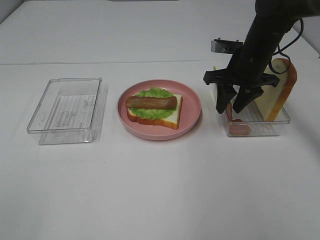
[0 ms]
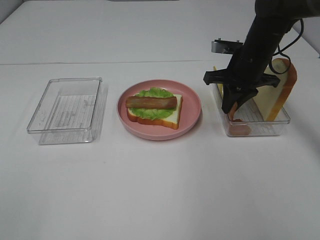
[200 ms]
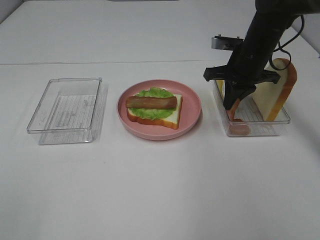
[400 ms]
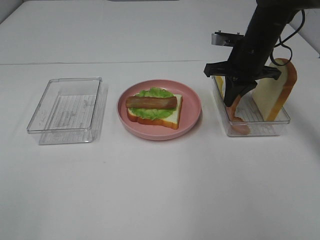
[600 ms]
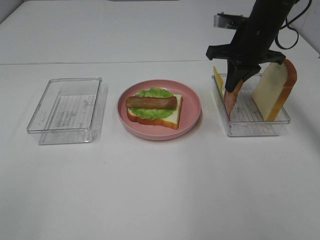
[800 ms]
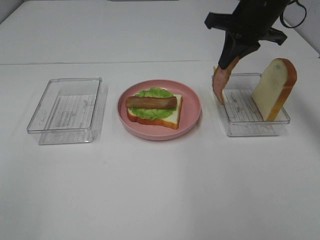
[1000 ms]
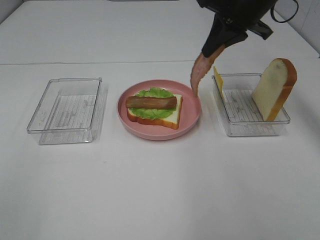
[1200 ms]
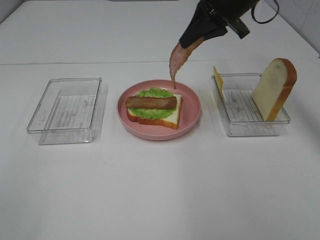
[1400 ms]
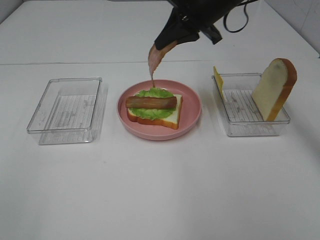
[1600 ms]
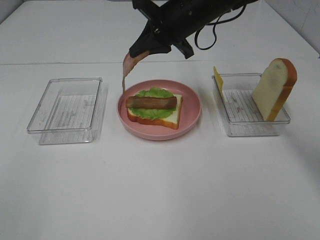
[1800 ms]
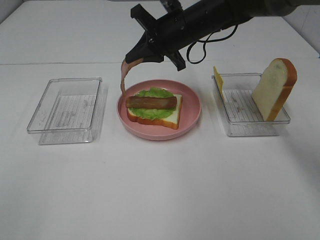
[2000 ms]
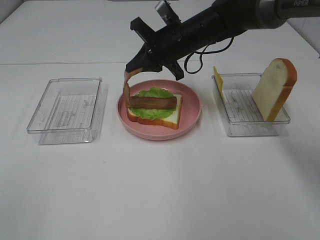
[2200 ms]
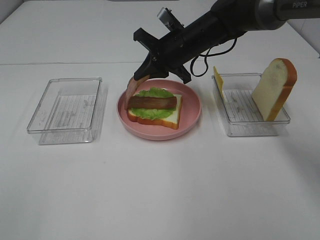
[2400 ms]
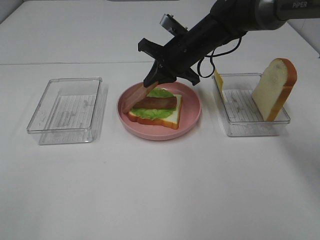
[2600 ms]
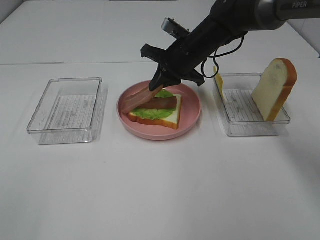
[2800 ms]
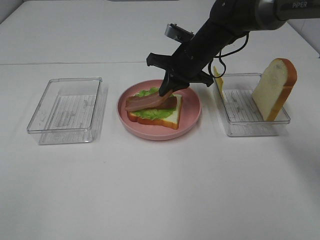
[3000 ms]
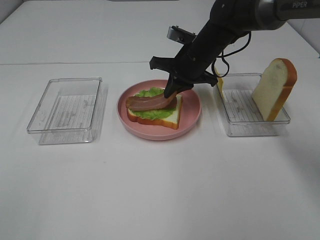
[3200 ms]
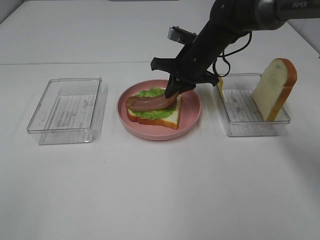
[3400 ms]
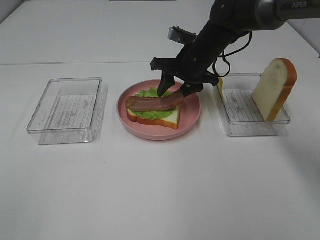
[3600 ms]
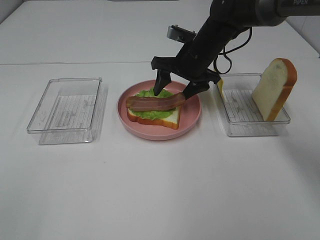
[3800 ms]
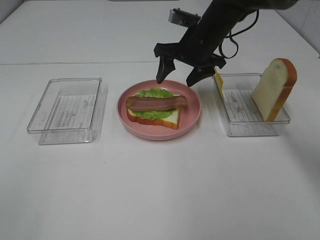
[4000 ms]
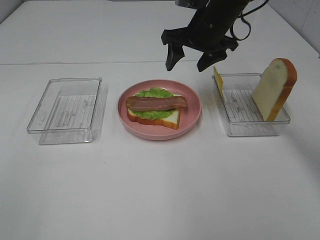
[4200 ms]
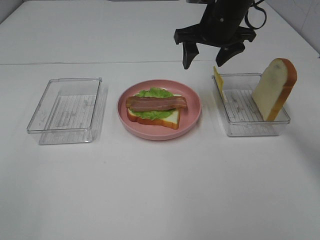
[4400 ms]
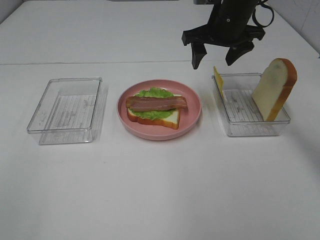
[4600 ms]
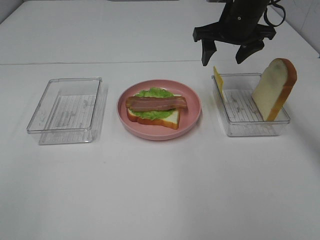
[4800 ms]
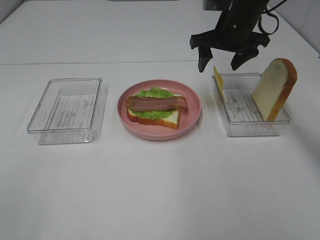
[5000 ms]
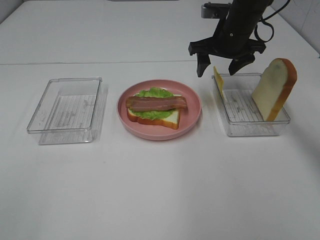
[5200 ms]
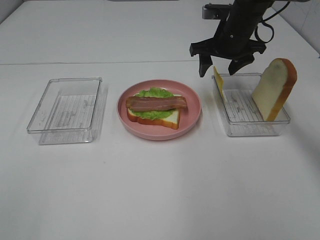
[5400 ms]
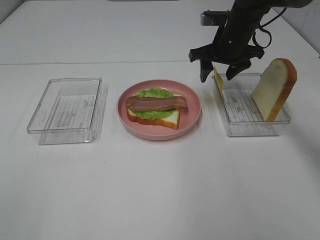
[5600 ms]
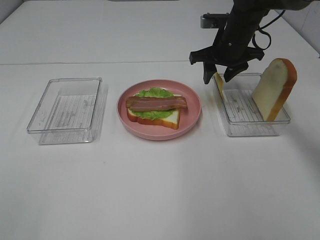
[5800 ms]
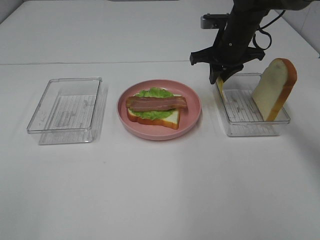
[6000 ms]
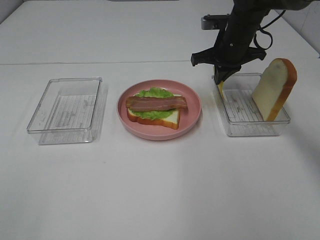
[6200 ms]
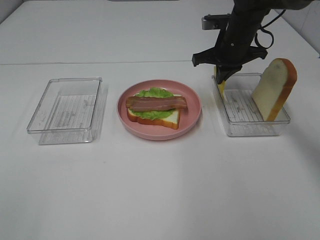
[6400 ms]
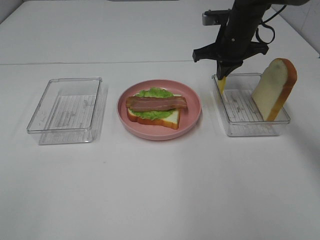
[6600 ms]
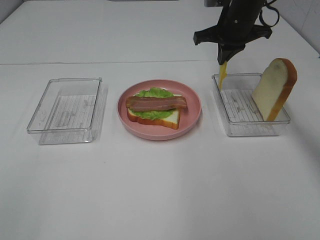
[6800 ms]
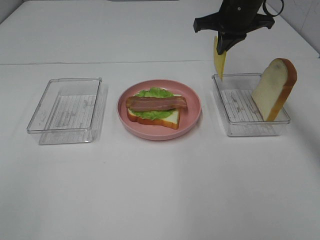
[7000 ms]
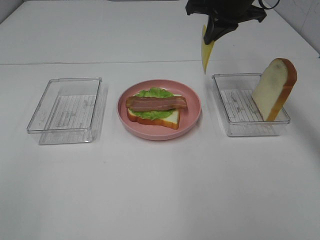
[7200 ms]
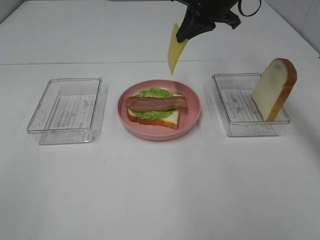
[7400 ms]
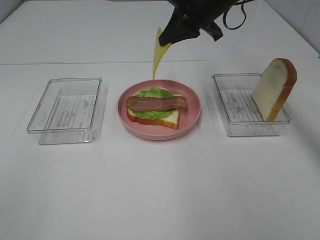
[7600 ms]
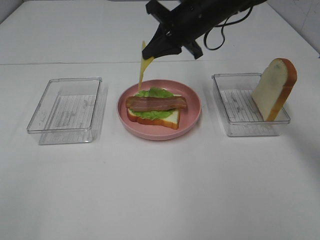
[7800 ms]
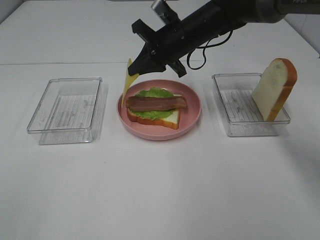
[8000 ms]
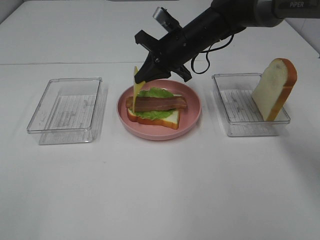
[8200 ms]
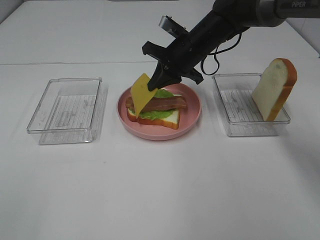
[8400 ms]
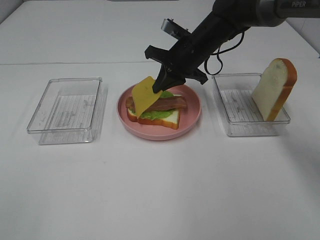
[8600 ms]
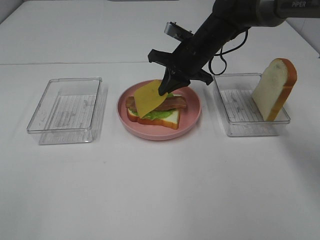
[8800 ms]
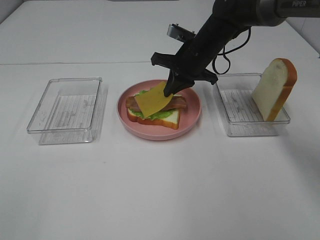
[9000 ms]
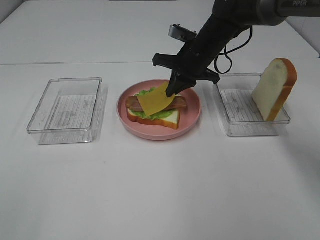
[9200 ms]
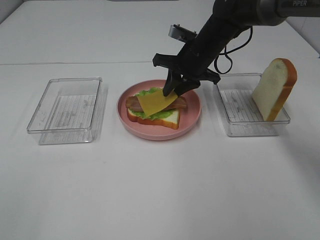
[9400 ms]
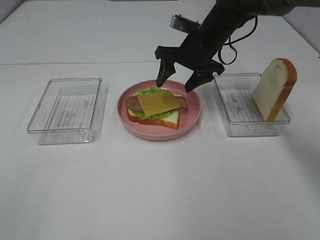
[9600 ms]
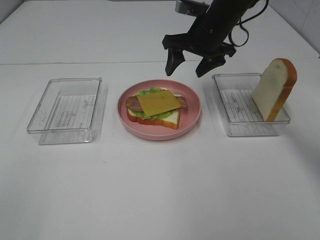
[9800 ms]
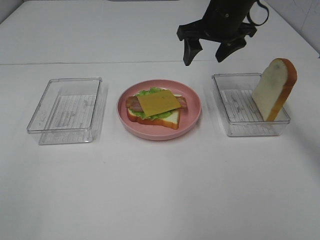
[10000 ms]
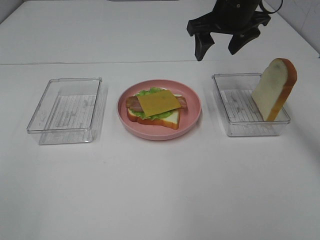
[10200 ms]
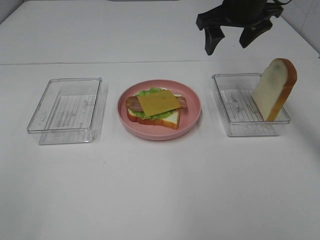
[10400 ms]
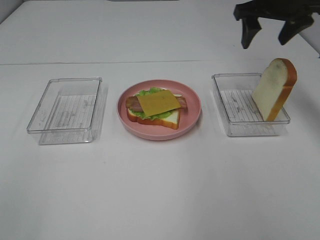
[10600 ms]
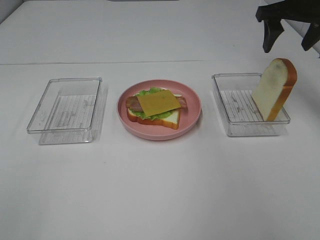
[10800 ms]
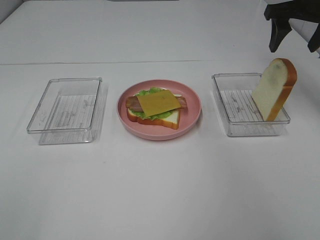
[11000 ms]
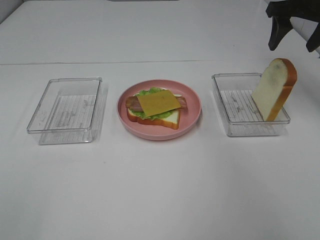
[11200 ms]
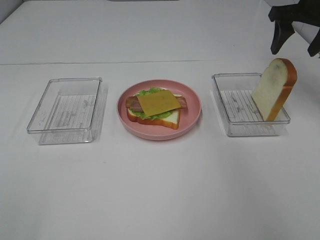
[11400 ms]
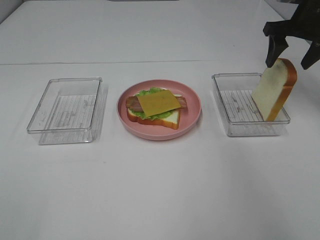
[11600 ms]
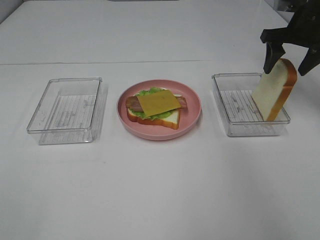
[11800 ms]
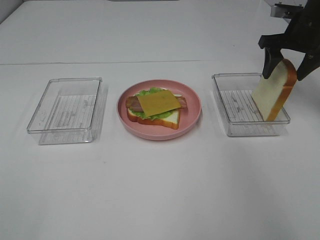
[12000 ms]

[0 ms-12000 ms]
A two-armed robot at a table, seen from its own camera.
Task of the whole recording: Make sandwiches.
Step, 600 ms to 4000 ms: Right hand:place bacon on bacon.
Step, 4200 ms to 6200 ms: Right hand:grab the cheese slice.
Step, 6400 ms to 9800 ms: Right hand:place the cheese slice on top of the bacon.
0 ms to 1600 ms: The right gripper goes about 15 cm upward and to the left, and closes.
1600 ms to 3000 ms: The right gripper heads downward, covering about 10 cm.
3000 ms to 4400 ms: The right gripper heads upward, covering approximately 10 cm, and opens its fingers.
4400 ms to 6000 ms: The right gripper travels downward by some 5 cm, and closes its fingers.
6000 ms to 7600 ms: The right gripper shifts approximately 10 cm upward and to the left.
7600 ms to 9000 ms: The right gripper moves downward, approximately 10 cm.
9000 ms to 10400 ms: The right gripper is displaced upward and to the right by some 15 cm, and opens.
10400 ms to 12000 ms: The right gripper heads to the right and downward, covering roughly 15 cm.

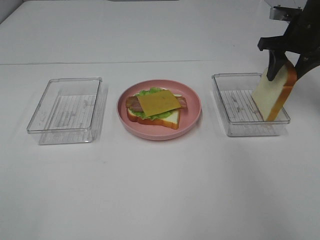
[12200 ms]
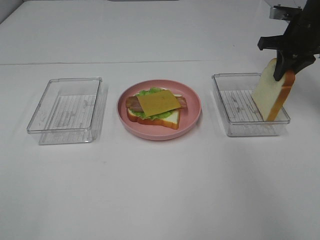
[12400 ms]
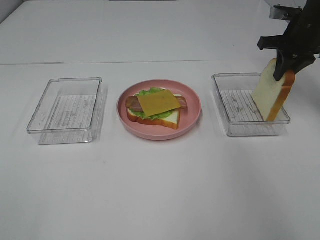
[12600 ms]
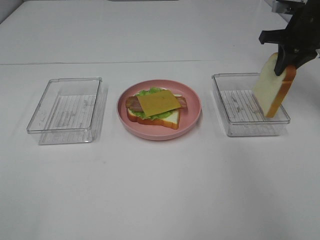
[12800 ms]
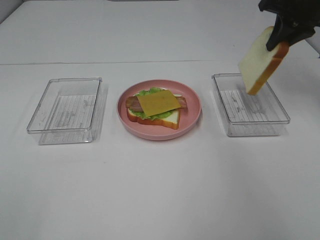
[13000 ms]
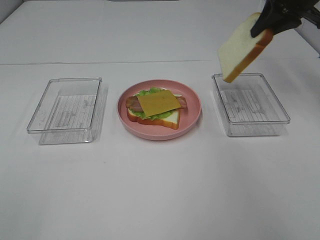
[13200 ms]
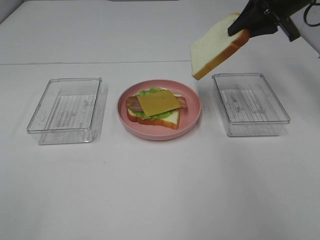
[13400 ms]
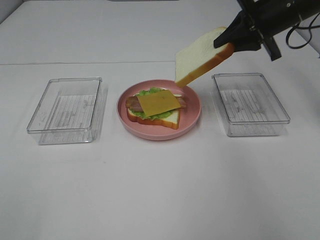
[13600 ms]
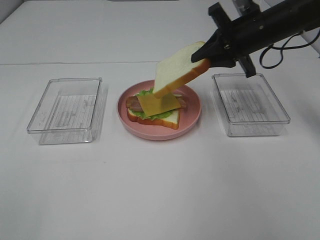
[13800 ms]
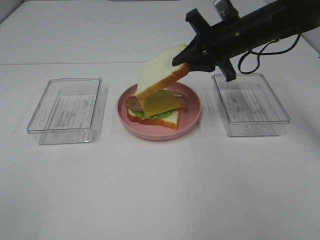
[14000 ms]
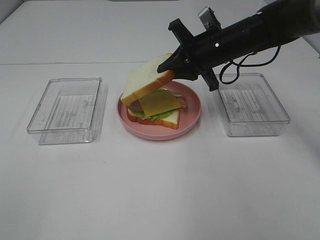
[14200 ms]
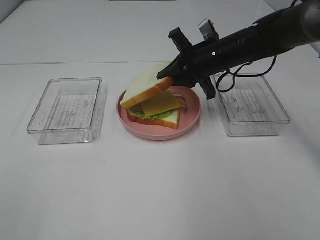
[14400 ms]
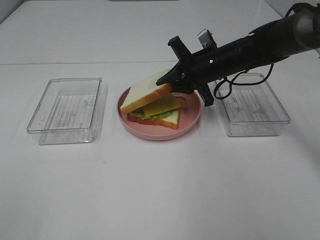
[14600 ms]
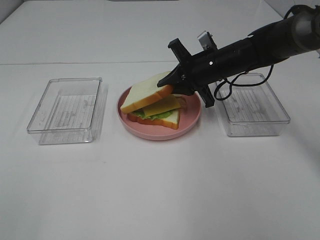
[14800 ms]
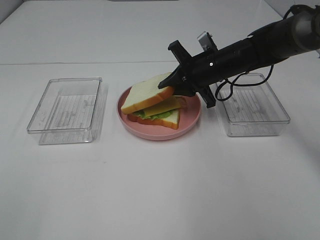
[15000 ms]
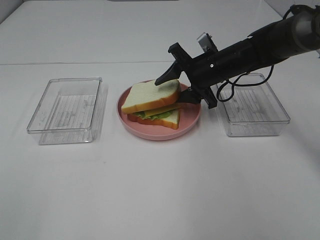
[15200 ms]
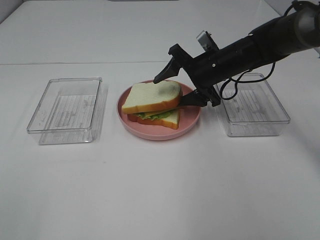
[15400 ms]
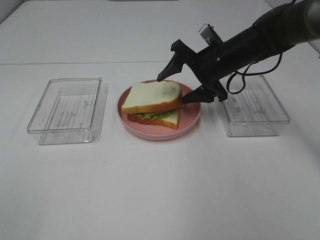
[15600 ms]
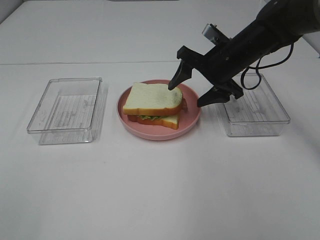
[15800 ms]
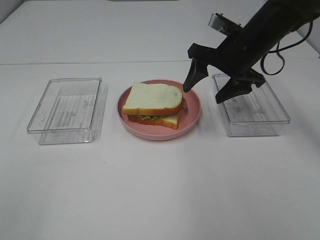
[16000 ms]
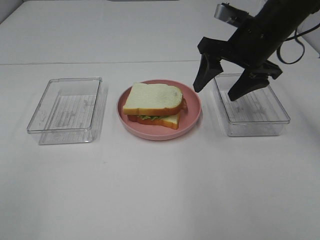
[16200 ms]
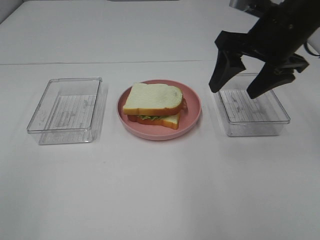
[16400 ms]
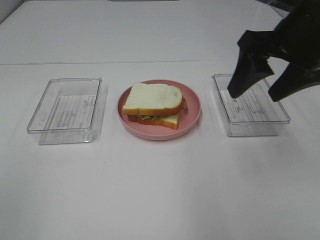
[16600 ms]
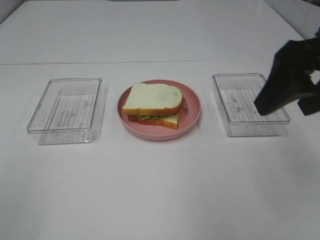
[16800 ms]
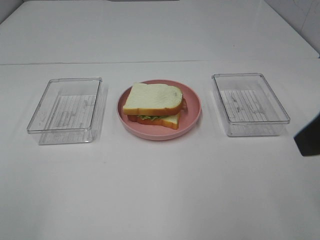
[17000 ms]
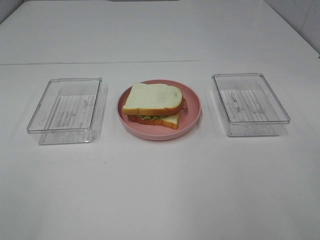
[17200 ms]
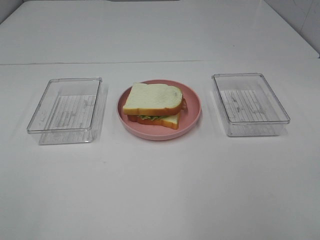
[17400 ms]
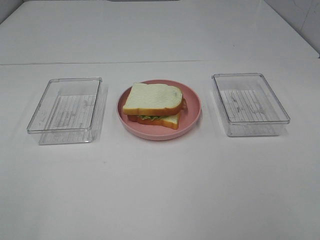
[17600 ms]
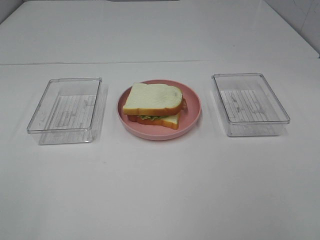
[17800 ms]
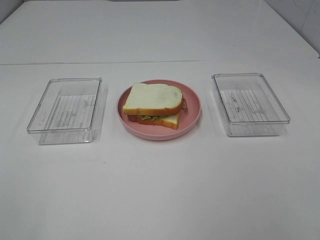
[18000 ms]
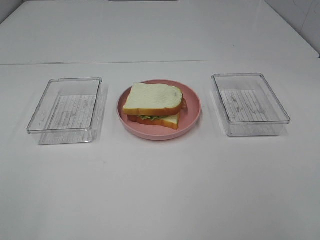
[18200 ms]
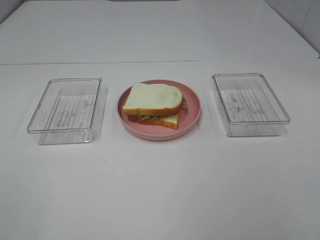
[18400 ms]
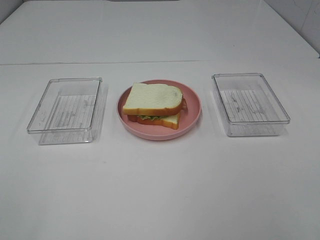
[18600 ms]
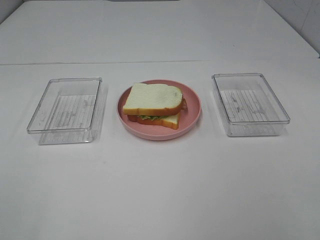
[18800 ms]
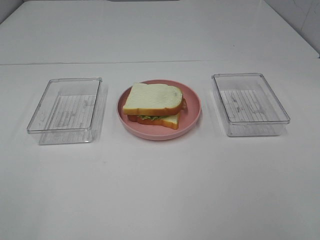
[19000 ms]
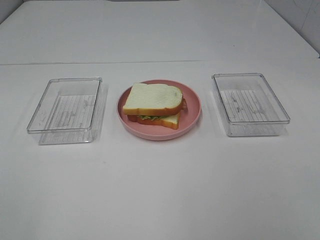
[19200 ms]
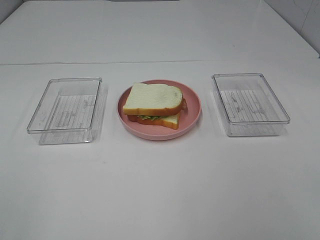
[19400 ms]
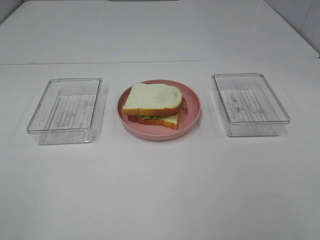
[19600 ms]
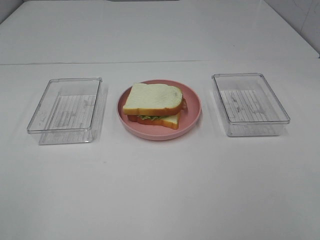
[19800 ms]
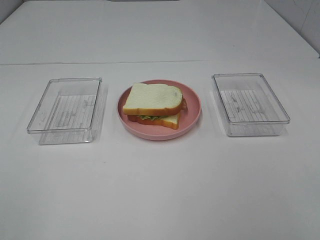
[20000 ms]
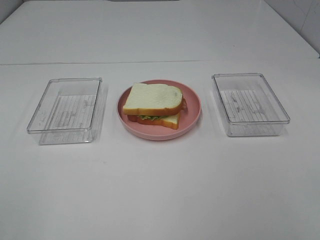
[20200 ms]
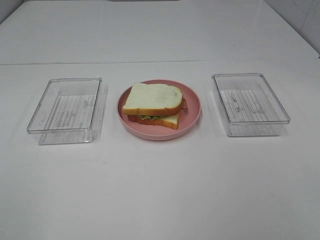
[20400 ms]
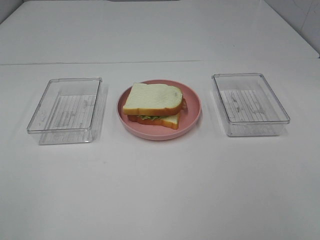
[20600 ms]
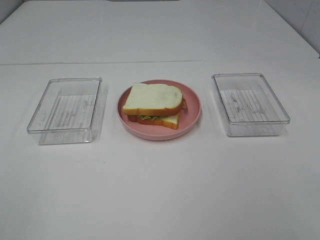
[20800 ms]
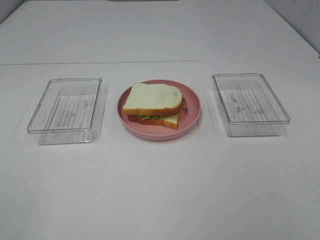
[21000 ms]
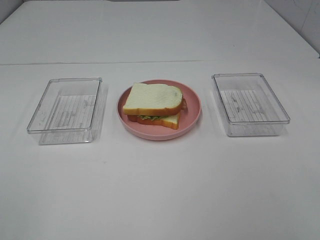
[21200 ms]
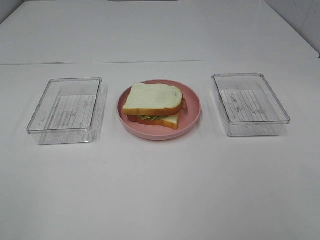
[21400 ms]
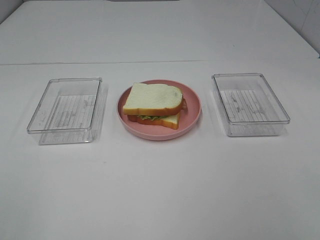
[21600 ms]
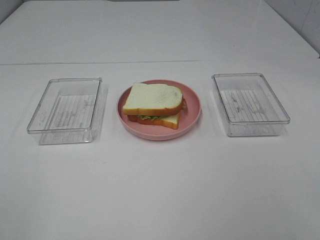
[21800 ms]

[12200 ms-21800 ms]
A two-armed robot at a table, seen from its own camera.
Task of the whole recording: Make sandwiches.
Step, 12400 ms to 16400 ms: Right hand:place the bread slice on the cheese slice.
12200 ms to 13800 ms: The right gripper heads to the left, covering approximately 10 cm, and closes its fingers.
13800 ms to 15400 ms: The right gripper shifts approximately 10 cm downward and to the left, and opens its fingers.
15400 ms to 17000 ms: The right gripper heads backward and upward, covering approximately 35 cm.
17000 ms to 18600 ms: The right gripper travels backward by about 10 cm.
20200 ms to 21800 ms: Both grippers stay put.
